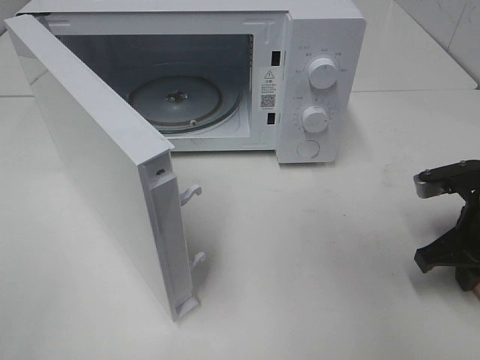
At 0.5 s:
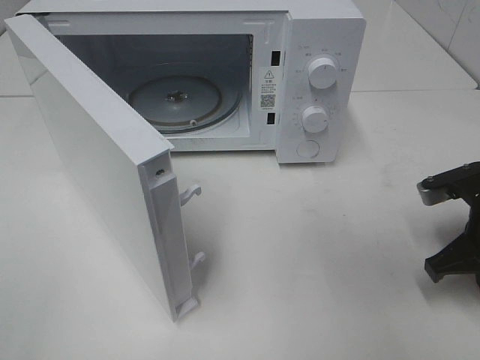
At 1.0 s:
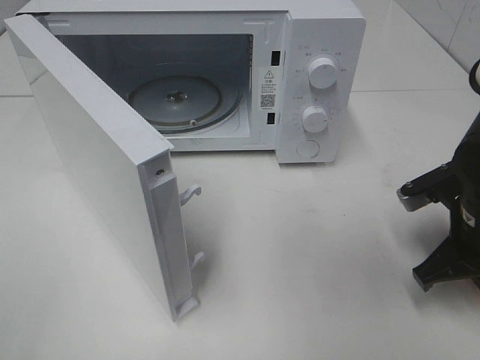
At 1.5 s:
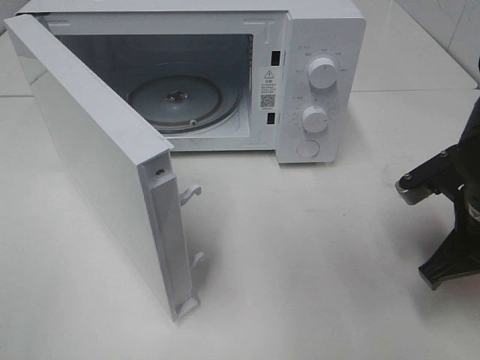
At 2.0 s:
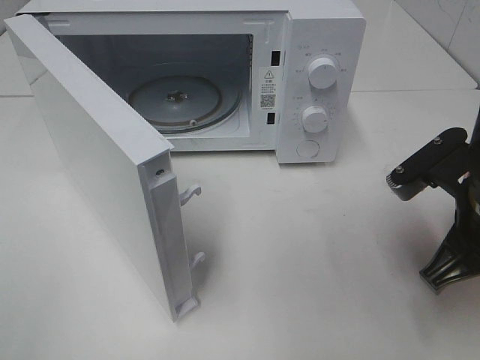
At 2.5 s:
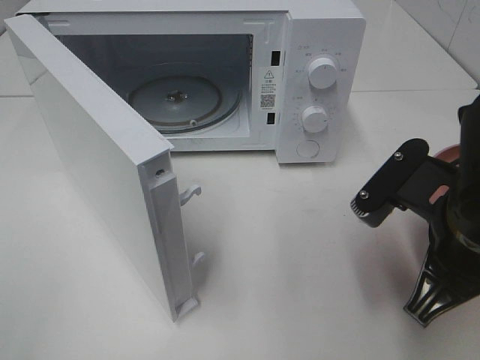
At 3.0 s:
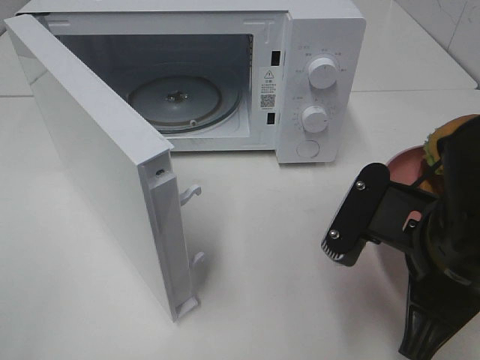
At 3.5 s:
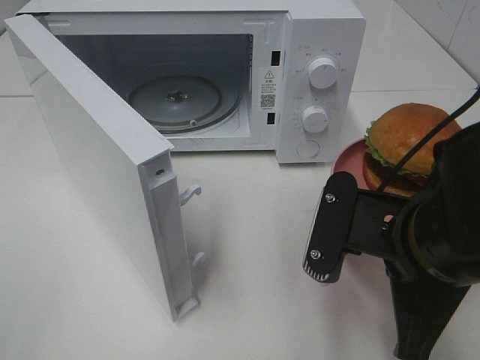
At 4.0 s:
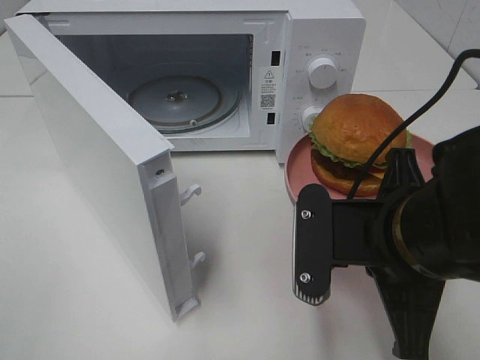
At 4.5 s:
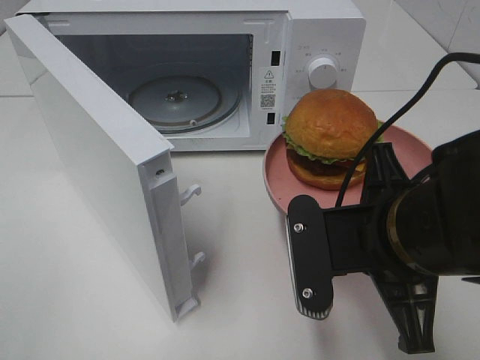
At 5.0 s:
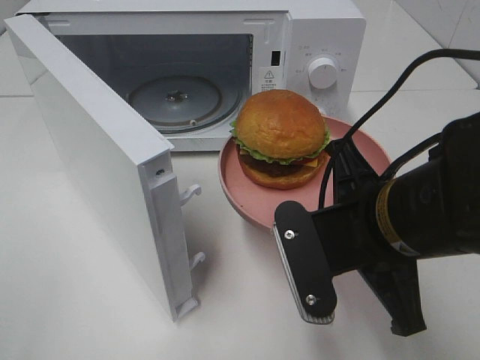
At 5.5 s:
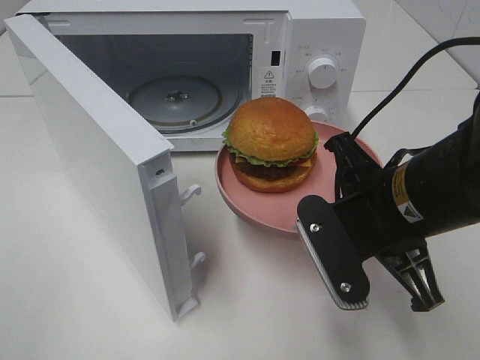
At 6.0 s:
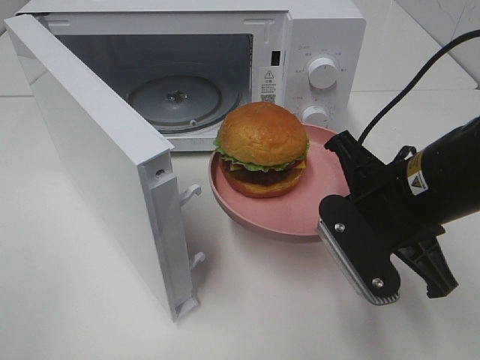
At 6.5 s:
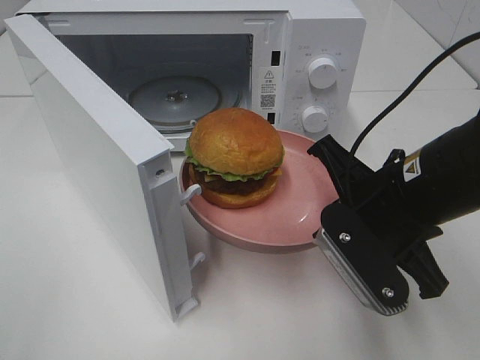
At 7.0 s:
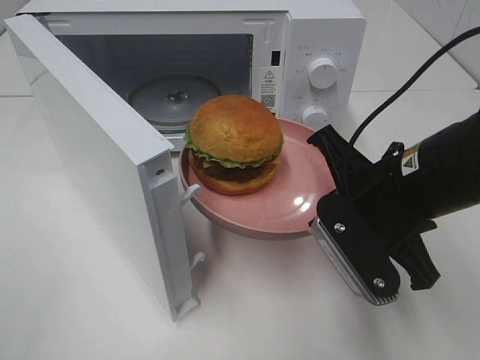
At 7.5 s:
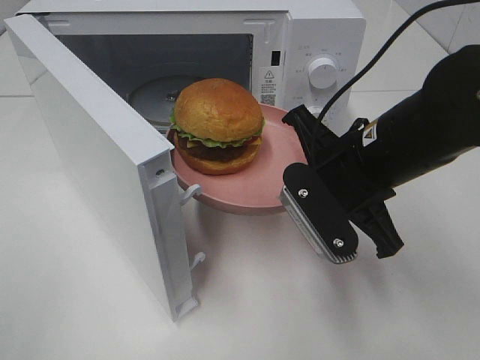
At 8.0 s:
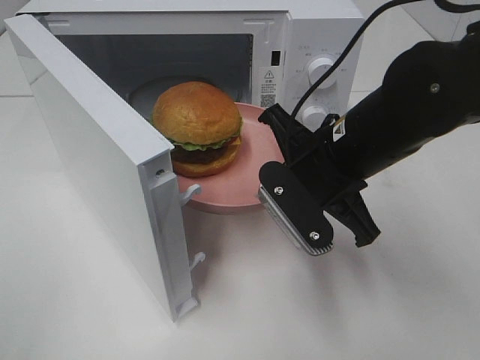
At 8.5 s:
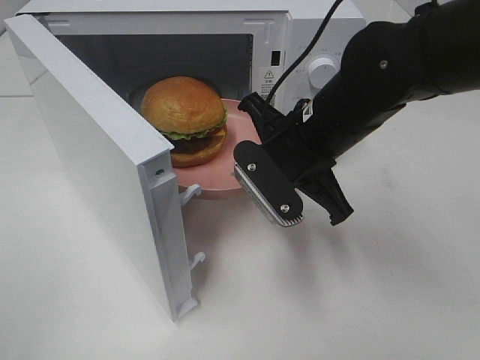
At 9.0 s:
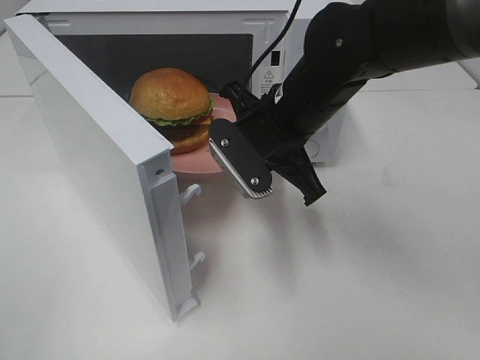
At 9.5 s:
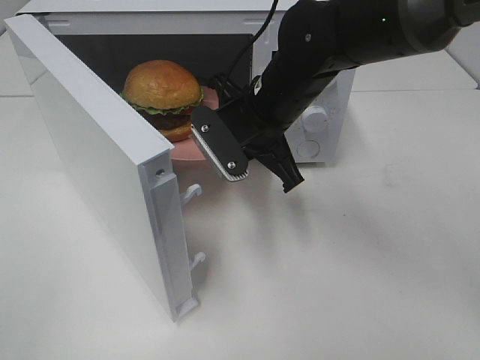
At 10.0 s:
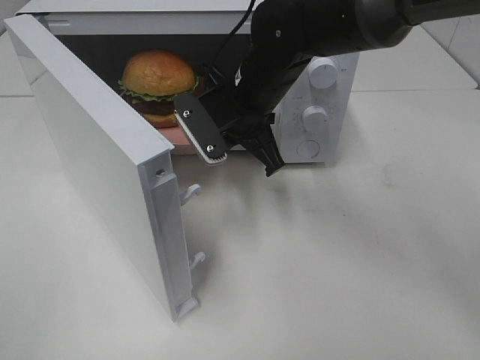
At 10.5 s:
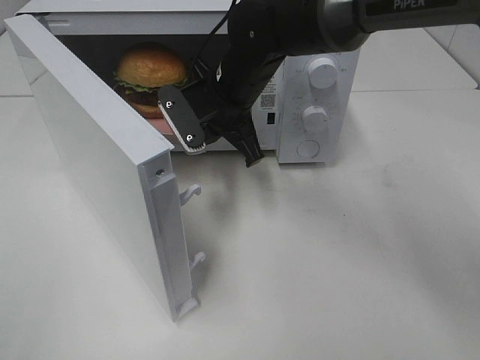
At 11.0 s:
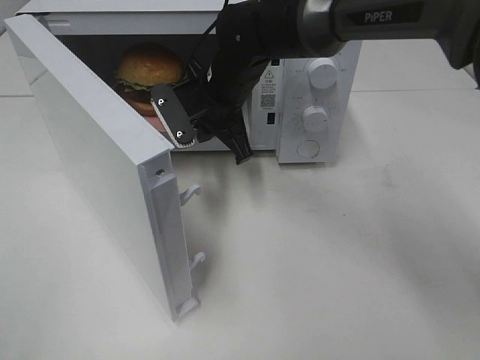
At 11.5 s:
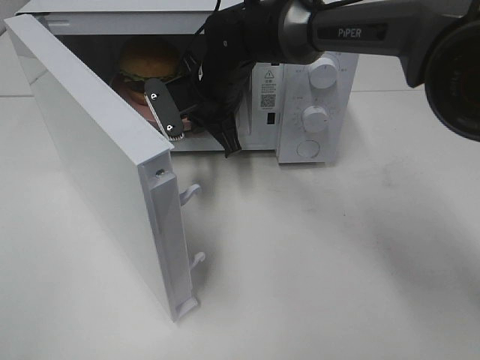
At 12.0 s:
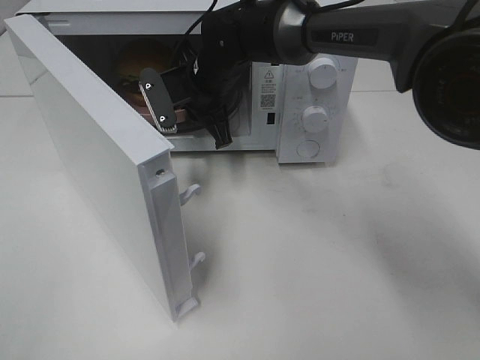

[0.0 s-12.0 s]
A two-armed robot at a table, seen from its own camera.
Task of the whole recording: Heat the burger.
0.0 to 2.0 s: The right gripper goes approximately 10 cm to the left, upward and backward.
2.0 to 4.0 s: The right gripper travels to the left by about 10 cm.
4.0 to 6.0 s: The right gripper is displaced forward by some 5 cm.
6.0 to 8.0 s: The right gripper moves forward, some 5 cm.
8.0 to 10.0 s: The right gripper heads forward and to the left, covering some 15 cm.
10.0 to 12.0 s: The right gripper goes roughly 10 cm forward and to the left.

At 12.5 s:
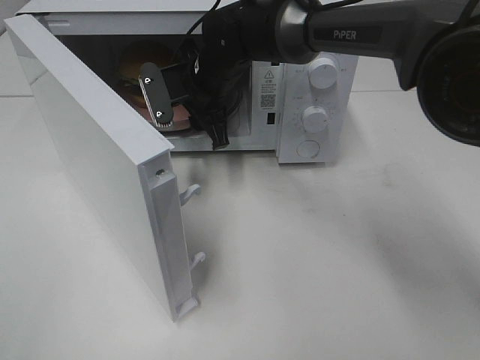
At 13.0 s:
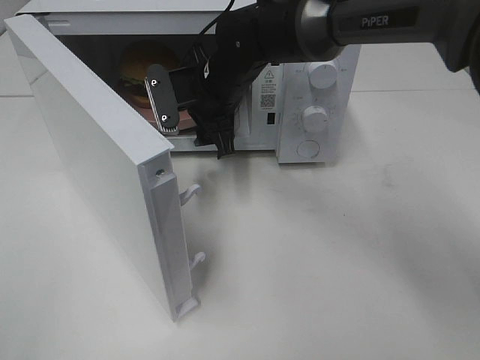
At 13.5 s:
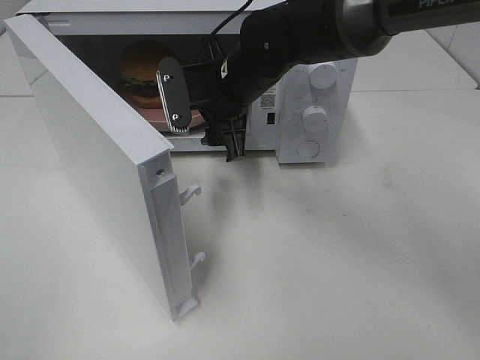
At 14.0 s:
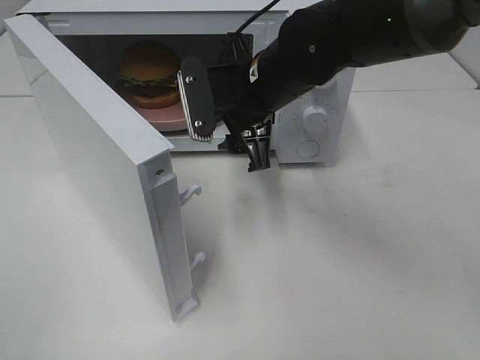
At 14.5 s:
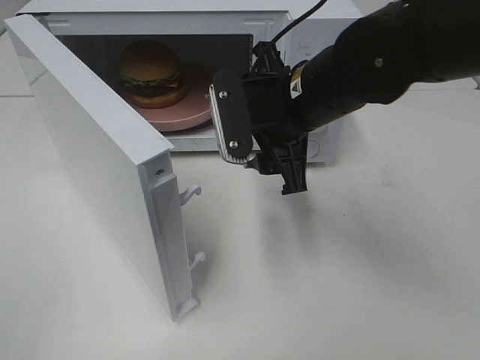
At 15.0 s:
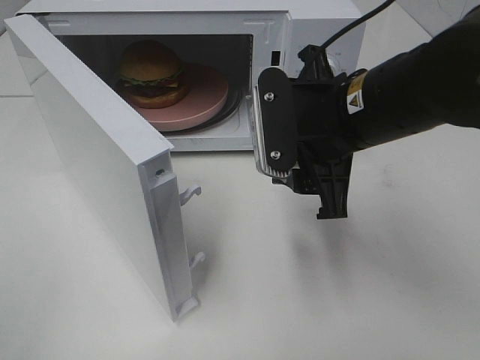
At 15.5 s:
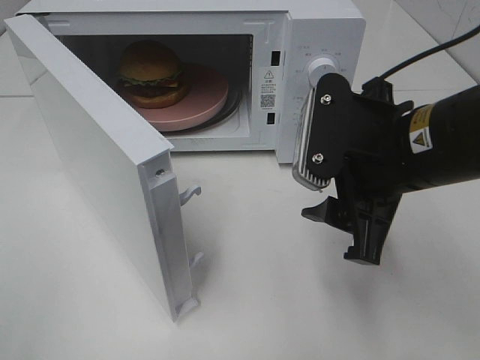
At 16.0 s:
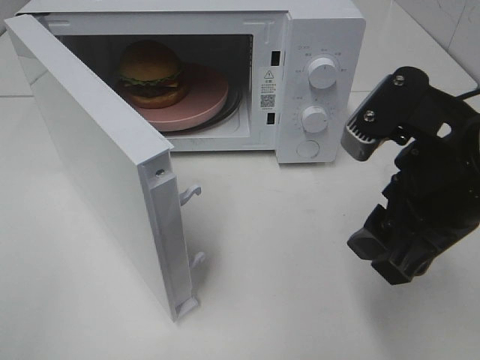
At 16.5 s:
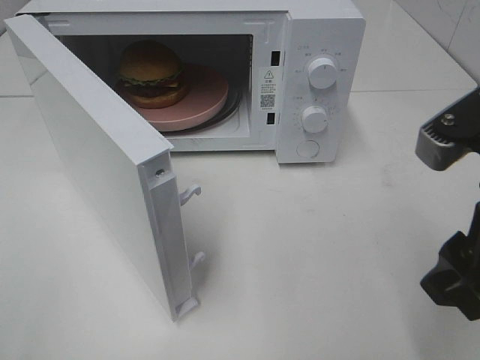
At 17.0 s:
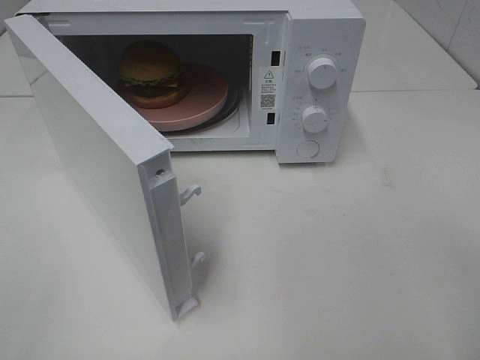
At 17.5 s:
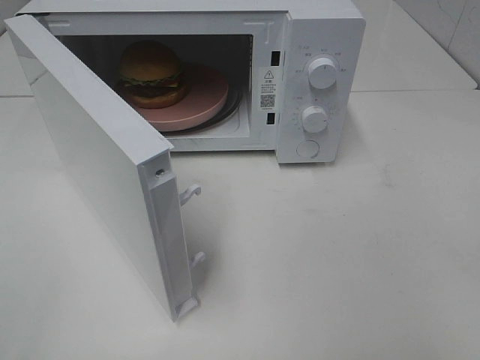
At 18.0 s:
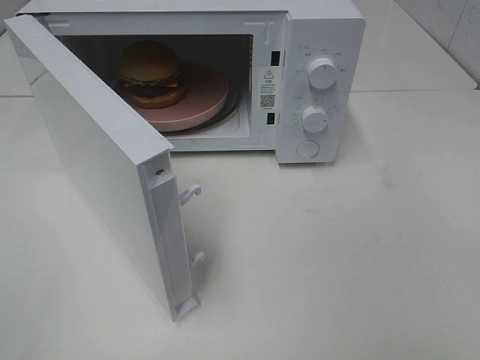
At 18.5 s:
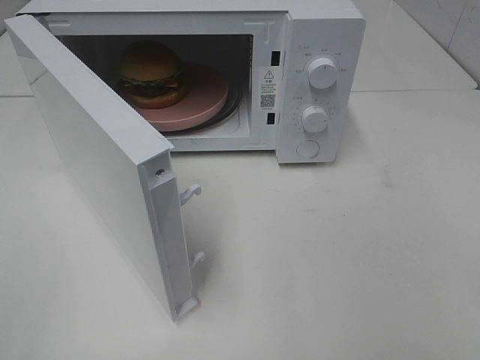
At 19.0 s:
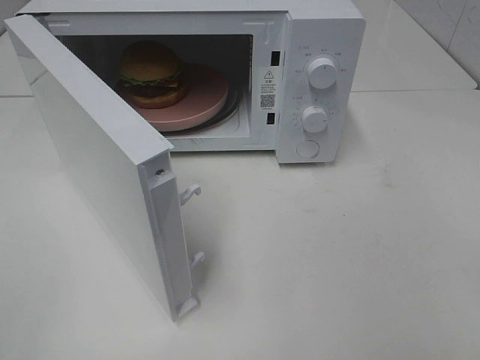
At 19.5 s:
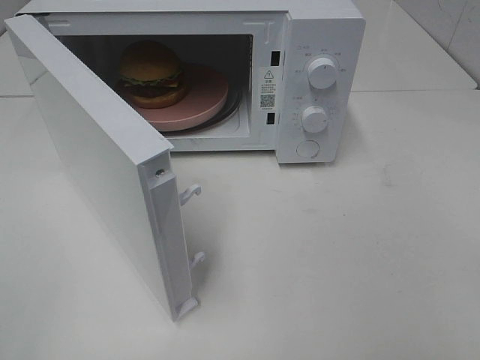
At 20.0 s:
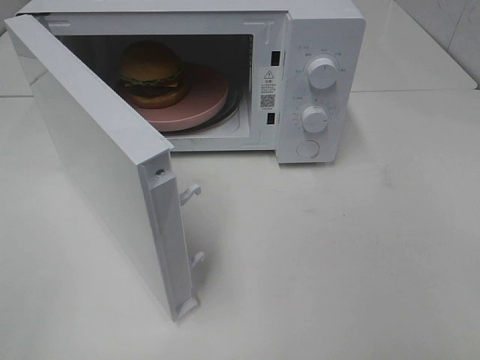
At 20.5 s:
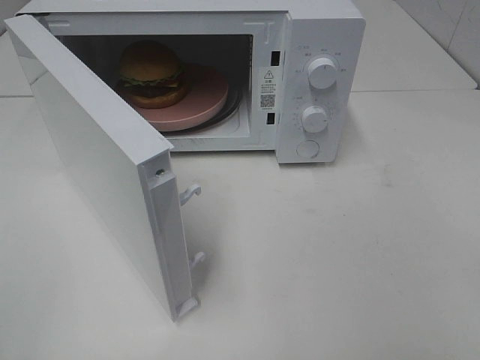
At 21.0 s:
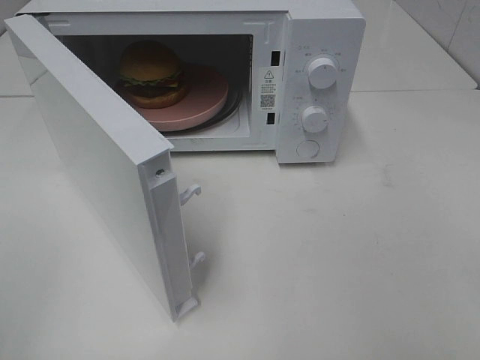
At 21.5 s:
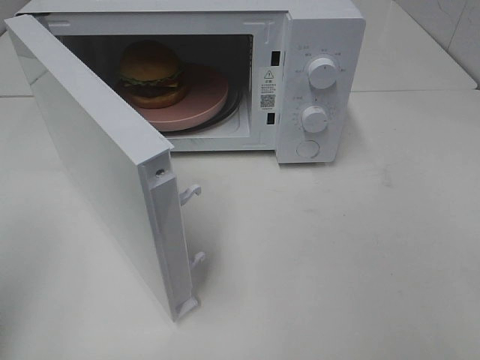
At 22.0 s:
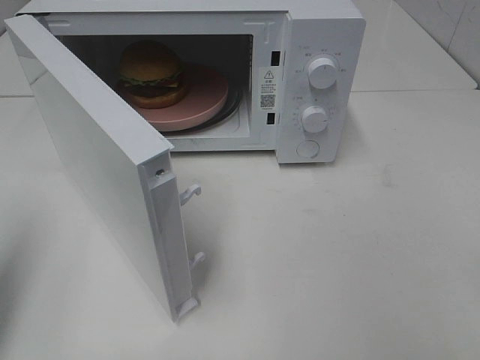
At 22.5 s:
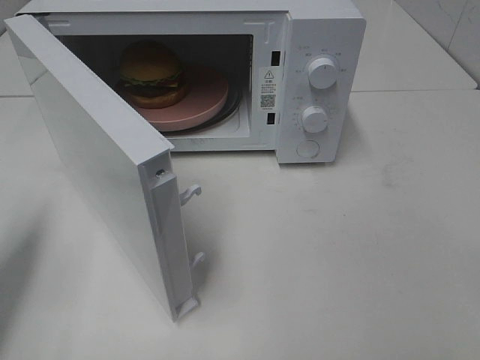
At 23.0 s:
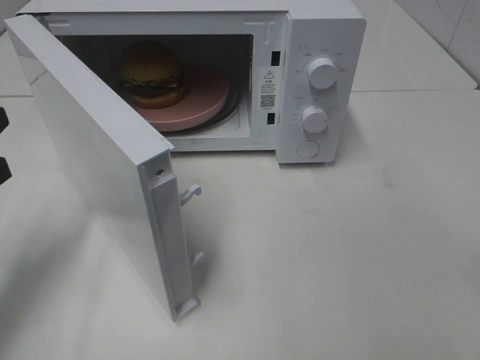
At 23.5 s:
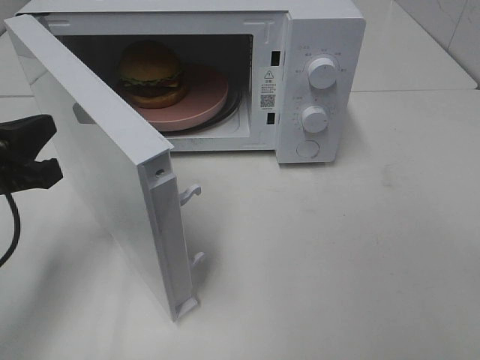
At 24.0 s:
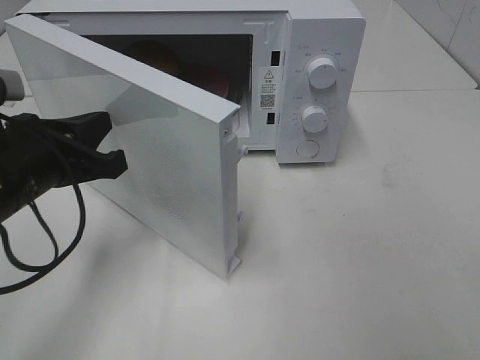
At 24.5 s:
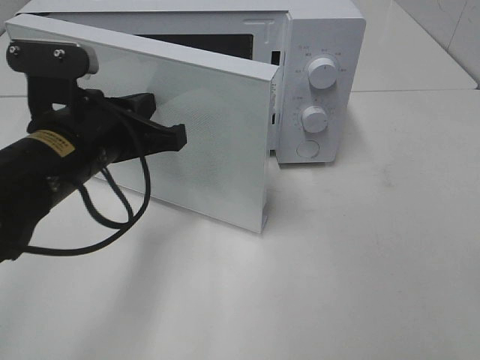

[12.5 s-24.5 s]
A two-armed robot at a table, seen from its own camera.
Task of the whole recording: Heat the burger.
12.5 to 14.5 s: The right gripper moves backward and to the right, approximately 15 cm.
14.5 to 16.5 s: The right gripper heads backward and to the right, covering approximately 20 cm.
16.5 to 18.5 s: The right gripper shifts approximately 15 cm backward and to the right.
20.5 to 22.5 s: The left gripper goes approximately 20 cm forward, and closes its fingers.
22.5 to 24.5 s: The left gripper is displaced to the right by about 20 cm.

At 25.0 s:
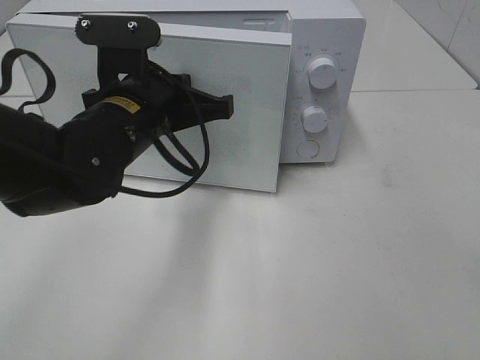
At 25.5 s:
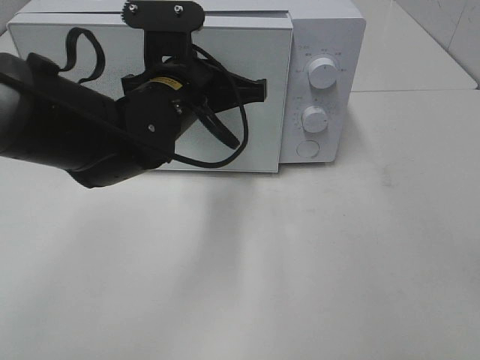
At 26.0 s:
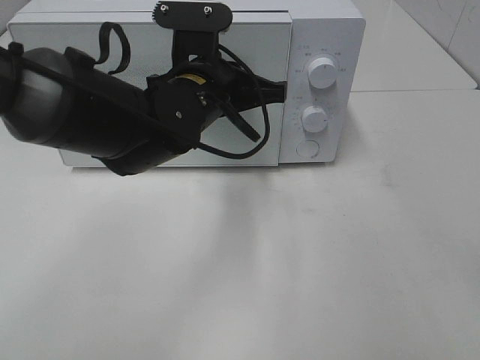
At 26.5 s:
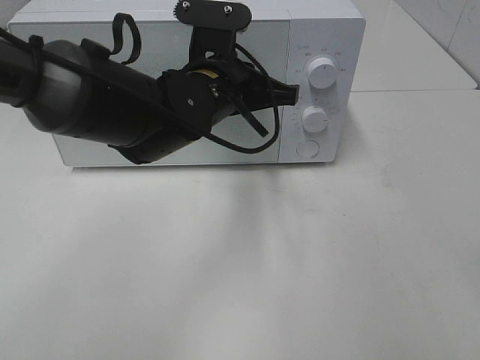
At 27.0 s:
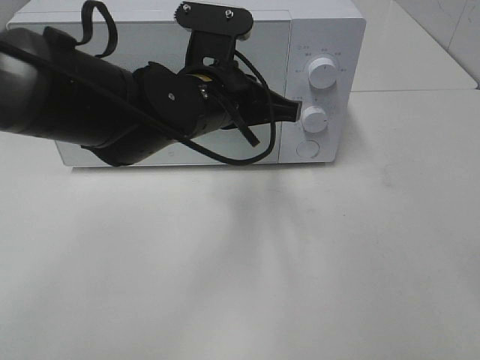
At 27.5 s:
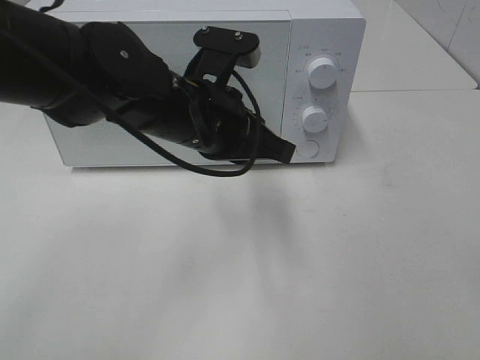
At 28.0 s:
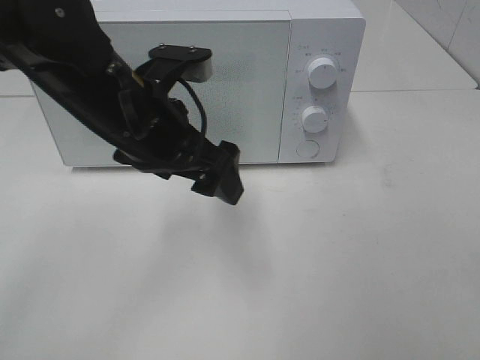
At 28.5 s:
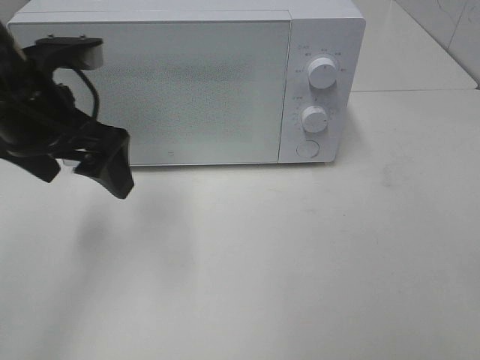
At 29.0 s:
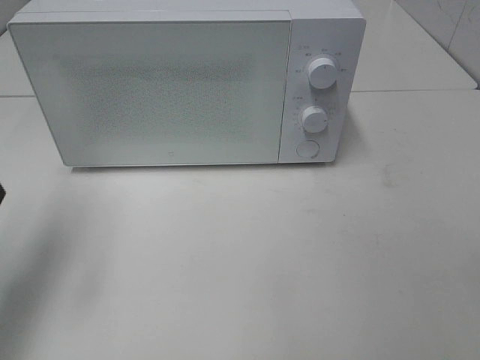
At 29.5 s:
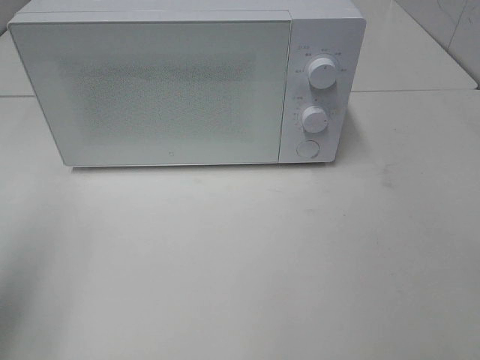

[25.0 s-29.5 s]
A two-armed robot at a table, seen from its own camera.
Task of the whole recording: Heat the burger.
25.0 to 27.0 s: The left gripper travels to the right by some 5 cm.
27.0 to 29.5 s: The left gripper travels to the left and backward by some 35 cm, and opens.
